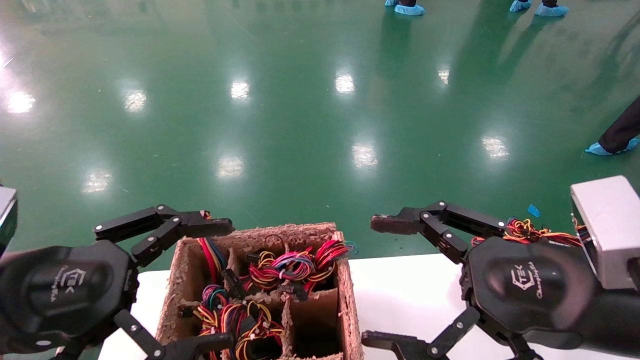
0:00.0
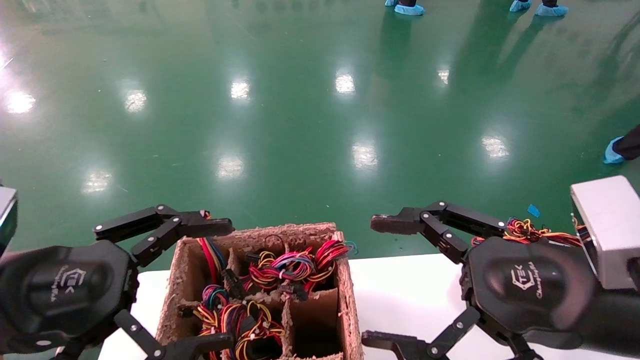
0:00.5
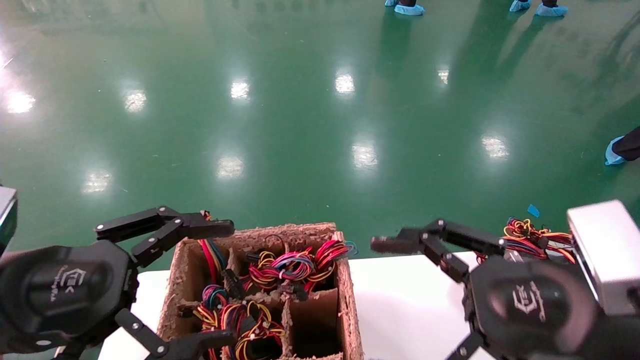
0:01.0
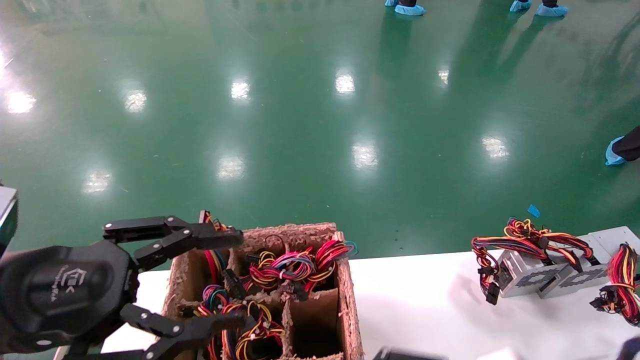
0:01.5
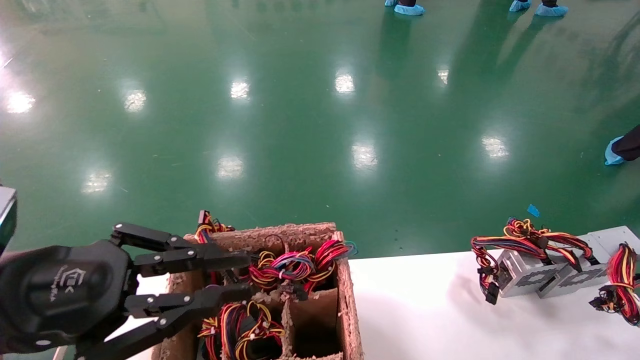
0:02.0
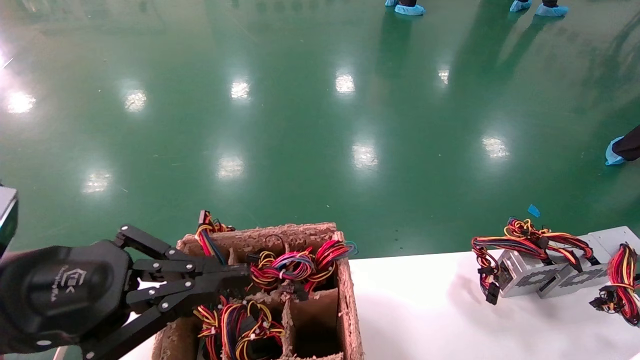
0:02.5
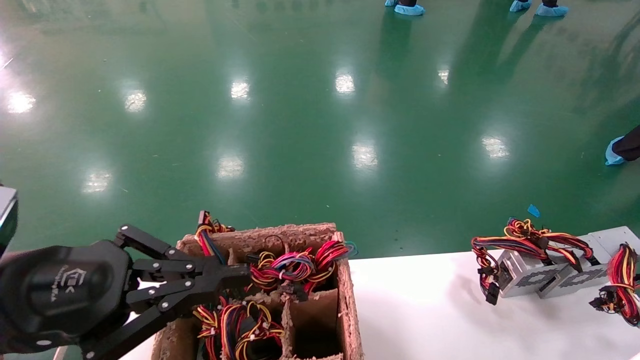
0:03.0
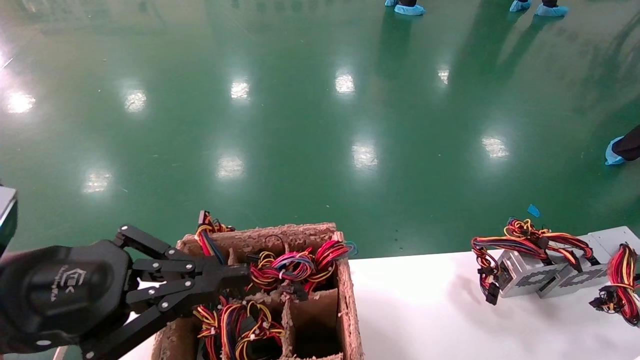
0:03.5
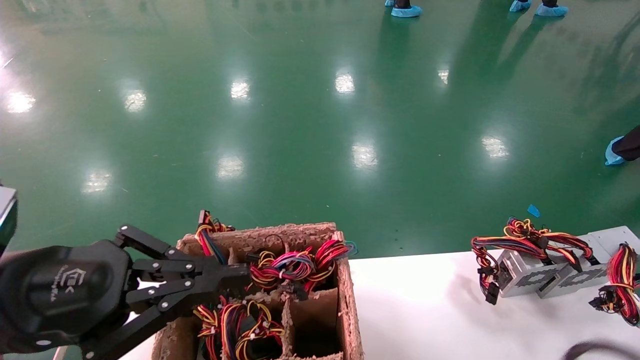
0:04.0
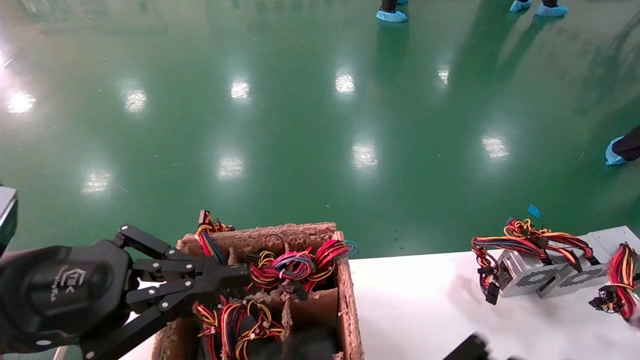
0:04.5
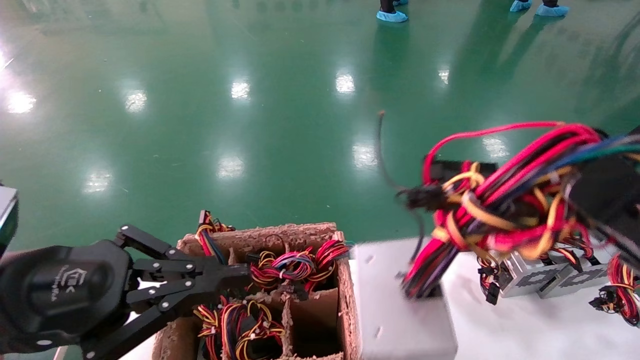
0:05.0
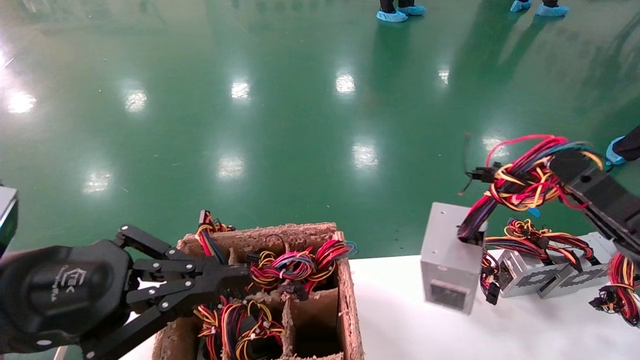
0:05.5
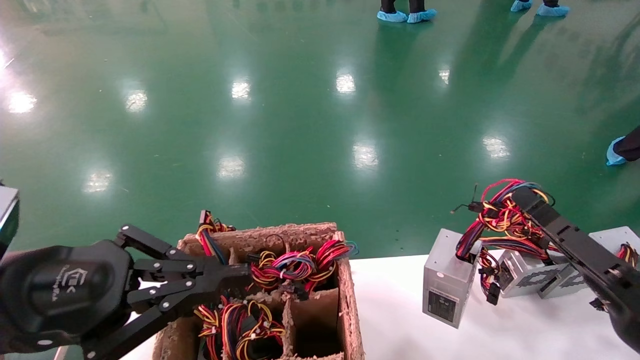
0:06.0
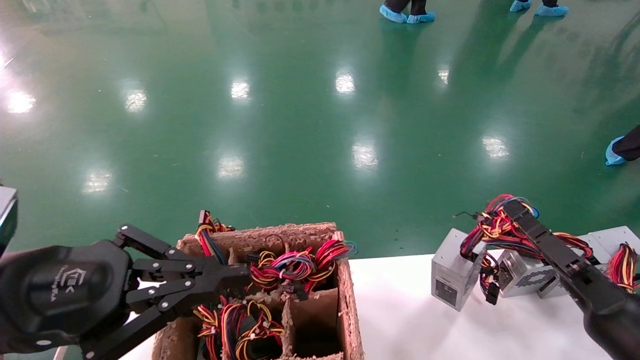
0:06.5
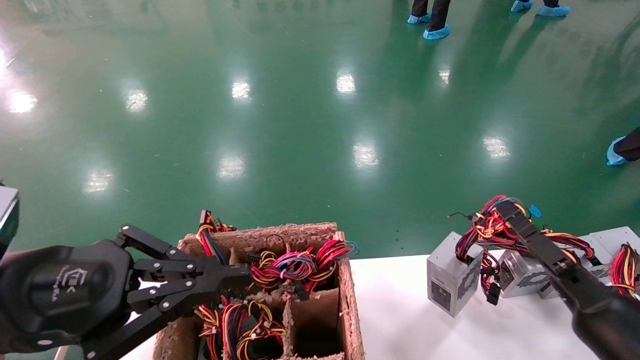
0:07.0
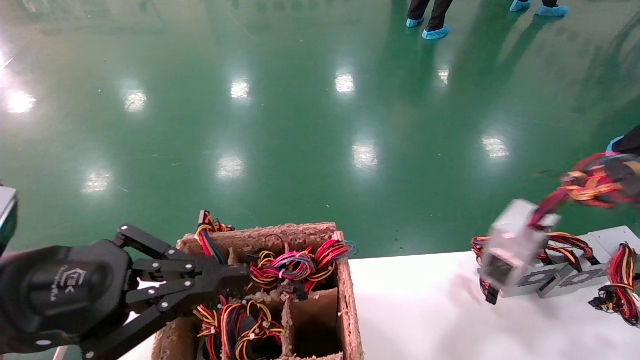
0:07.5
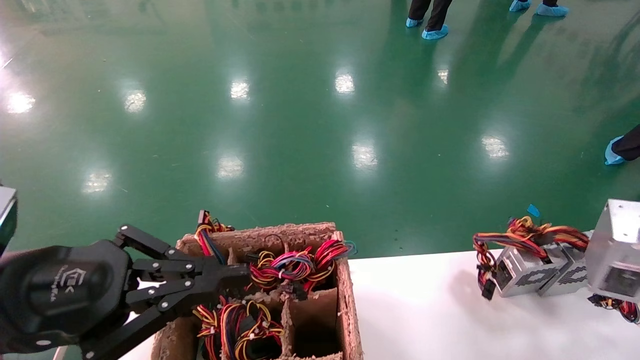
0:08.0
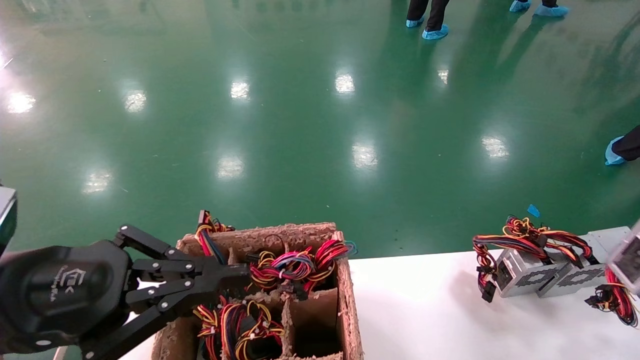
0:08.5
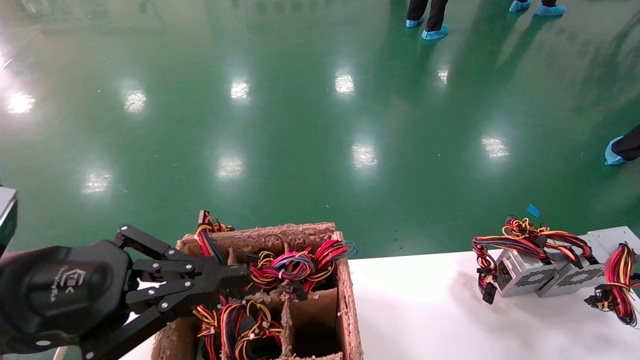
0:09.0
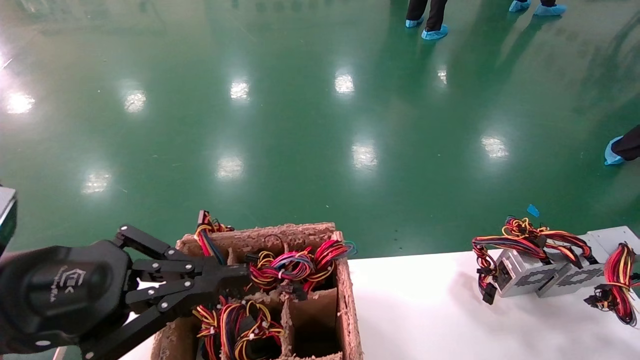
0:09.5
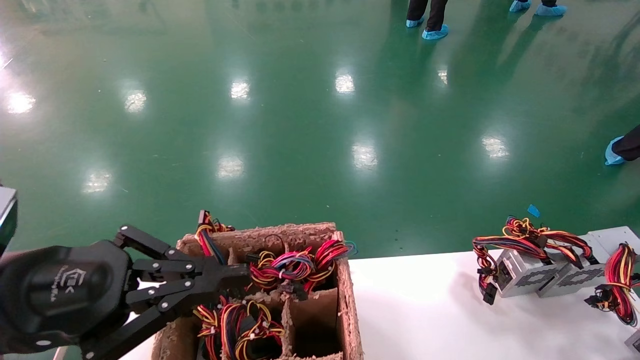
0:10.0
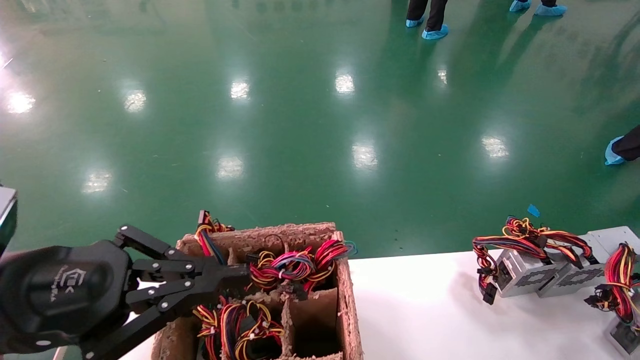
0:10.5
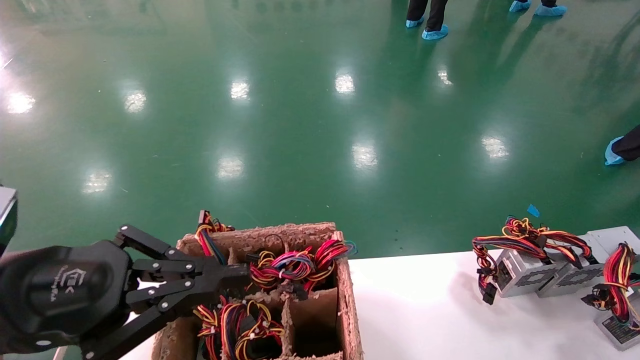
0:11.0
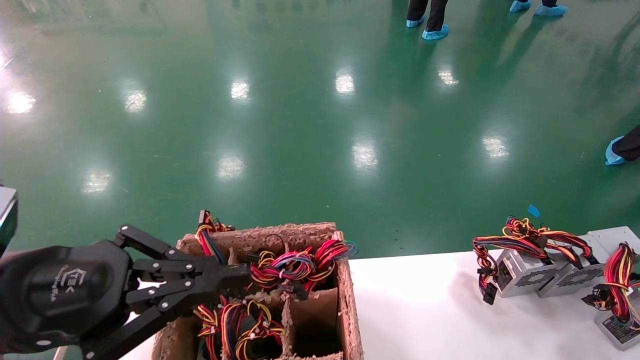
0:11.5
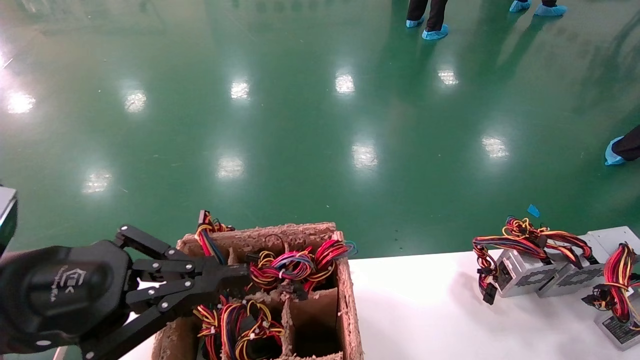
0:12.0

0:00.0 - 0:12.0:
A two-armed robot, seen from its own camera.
Step, 0:01.5 - 0:03.5: Grab the main unit power supply from the containment box.
0:00.0 - 0:02.0: The left gripper closes up. Meanwhile the right gripper is displaced downward and to the left by about 15 cm.
0:02.0 - 0:04.0: The right gripper closes.
0:04.0 - 0:06.0: The right gripper heads to the right, covering roughly 20 cm.
0:06.0 - 0:08.0: The right gripper is displaced to the right and backward by about 15 cm.
0:08.0 - 0:10.0: The right gripper moves downward and to the right, roughly 15 cm.
0:10.0 - 0:12.0: The right gripper ends up about 5 cm from where it was.

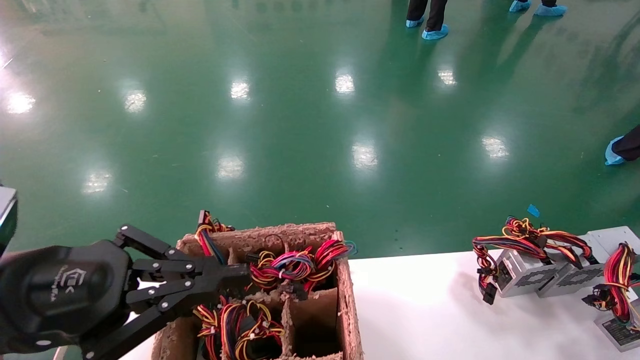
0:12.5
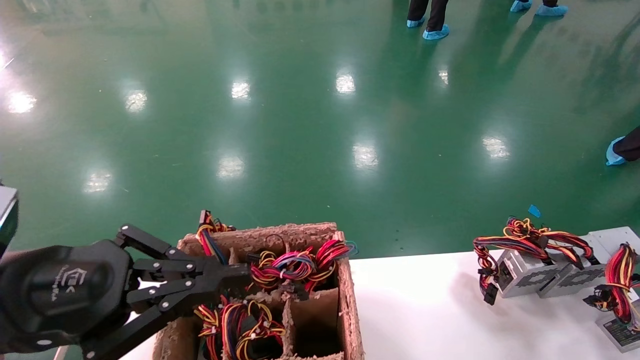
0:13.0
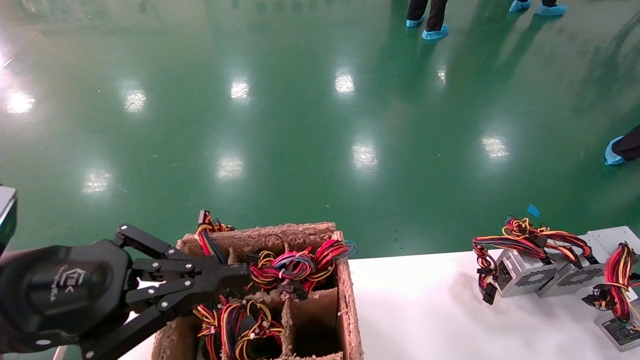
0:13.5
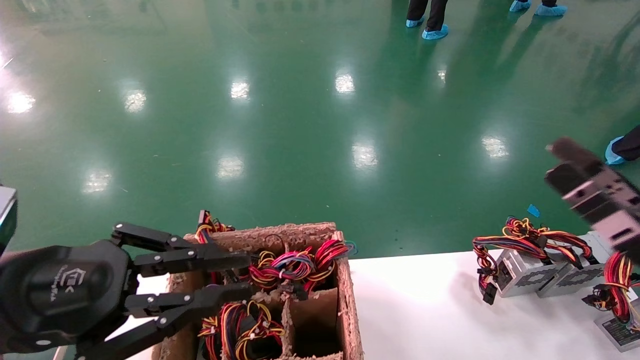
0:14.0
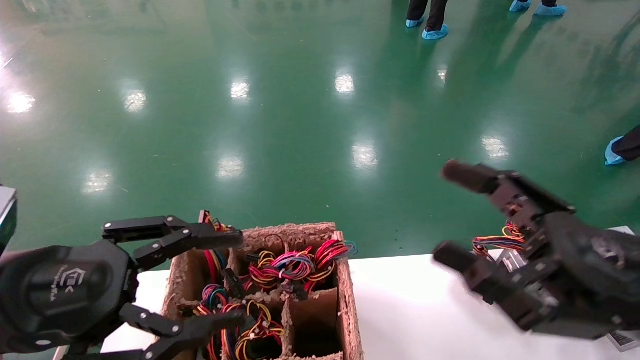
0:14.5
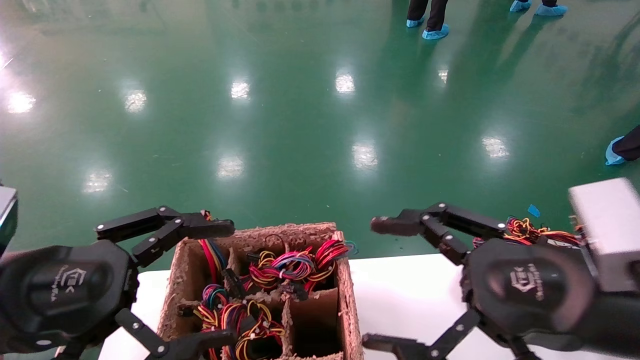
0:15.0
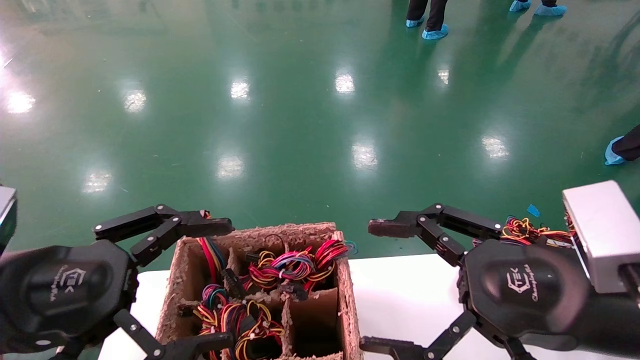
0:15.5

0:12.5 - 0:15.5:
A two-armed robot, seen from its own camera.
0:12.5 - 0:14.0: The right gripper heads to the left and upward, covering some 30 cm.
0:14.0 - 0:15.5: The right gripper travels to the left and upward by about 10 cm. The left gripper opens.
